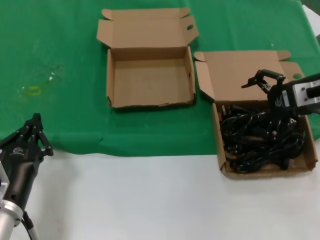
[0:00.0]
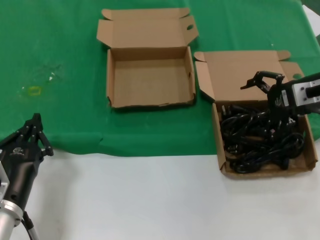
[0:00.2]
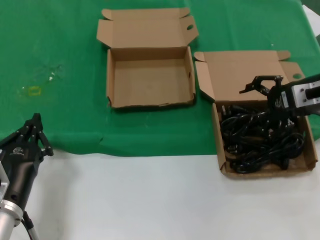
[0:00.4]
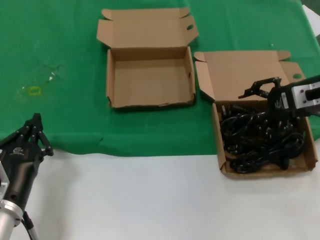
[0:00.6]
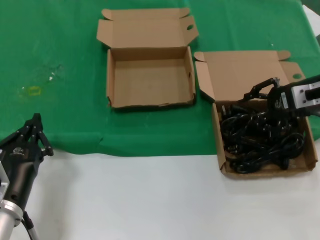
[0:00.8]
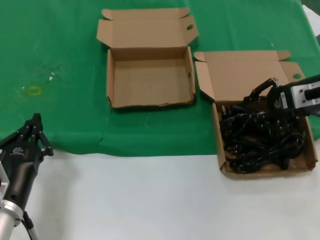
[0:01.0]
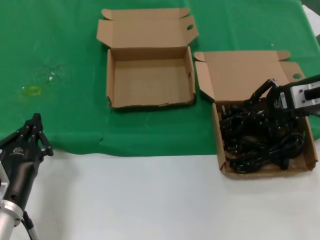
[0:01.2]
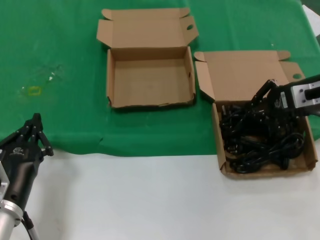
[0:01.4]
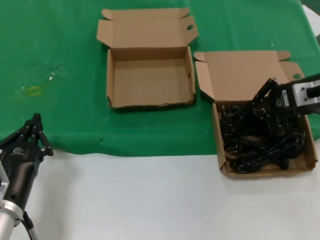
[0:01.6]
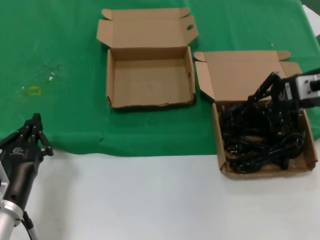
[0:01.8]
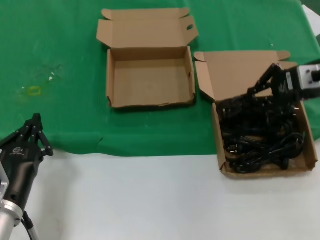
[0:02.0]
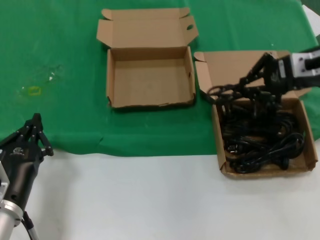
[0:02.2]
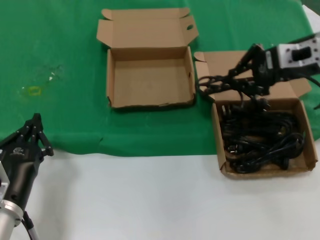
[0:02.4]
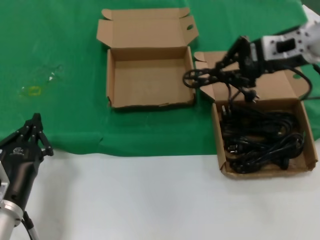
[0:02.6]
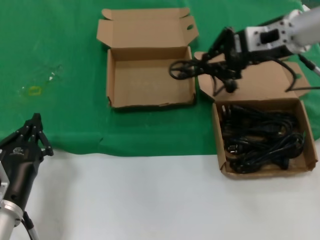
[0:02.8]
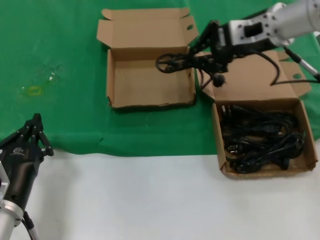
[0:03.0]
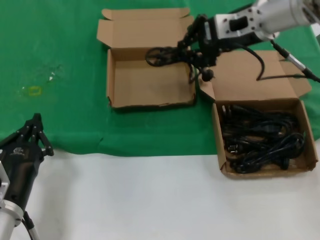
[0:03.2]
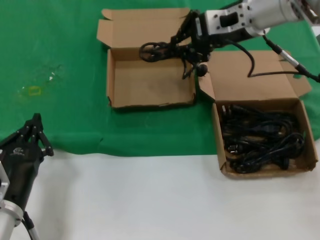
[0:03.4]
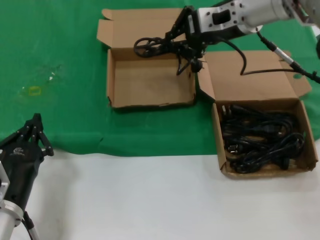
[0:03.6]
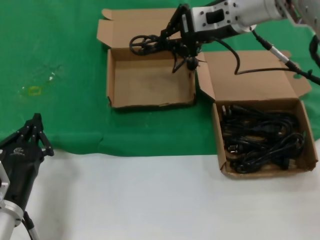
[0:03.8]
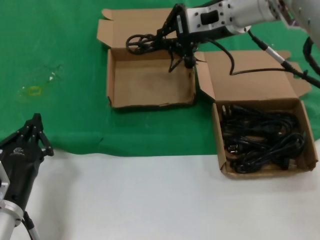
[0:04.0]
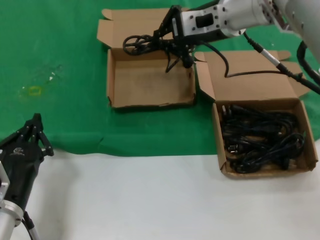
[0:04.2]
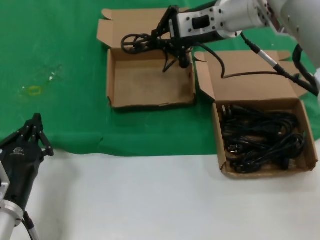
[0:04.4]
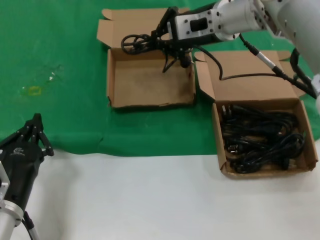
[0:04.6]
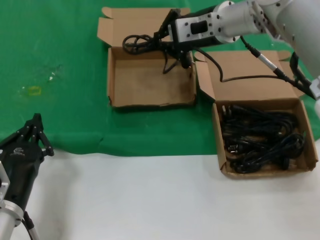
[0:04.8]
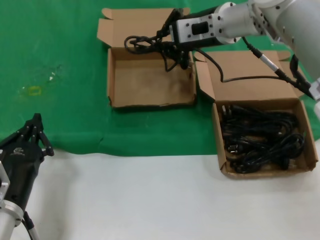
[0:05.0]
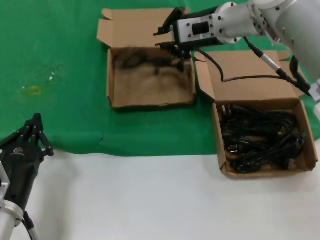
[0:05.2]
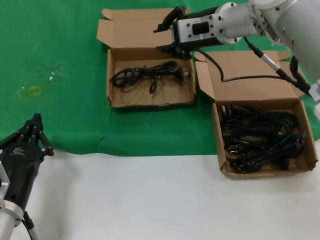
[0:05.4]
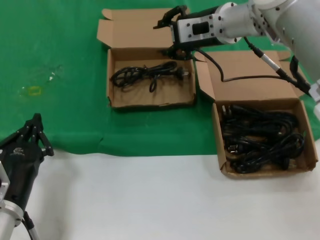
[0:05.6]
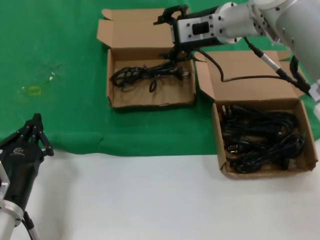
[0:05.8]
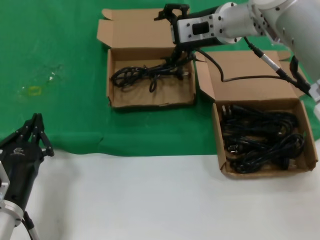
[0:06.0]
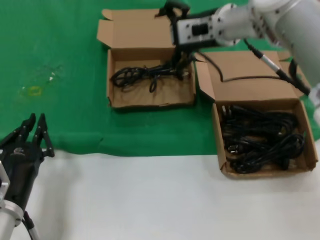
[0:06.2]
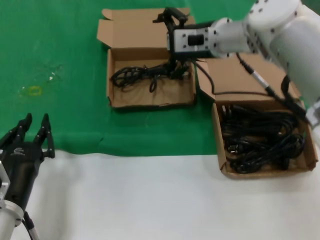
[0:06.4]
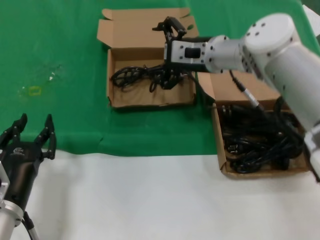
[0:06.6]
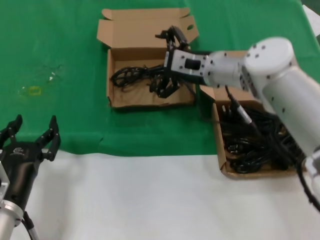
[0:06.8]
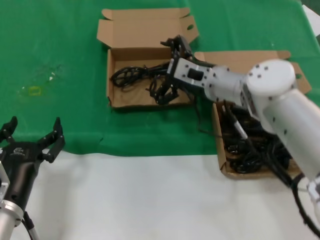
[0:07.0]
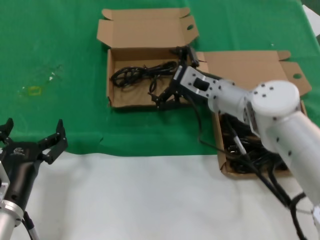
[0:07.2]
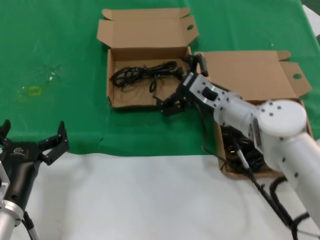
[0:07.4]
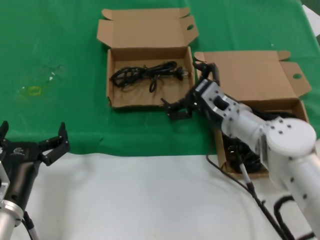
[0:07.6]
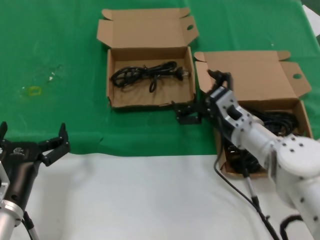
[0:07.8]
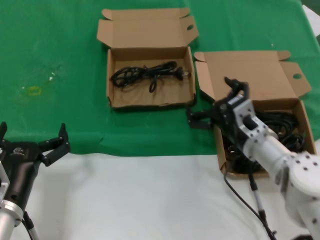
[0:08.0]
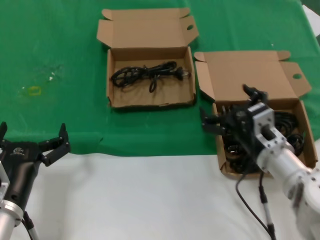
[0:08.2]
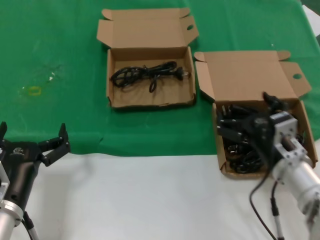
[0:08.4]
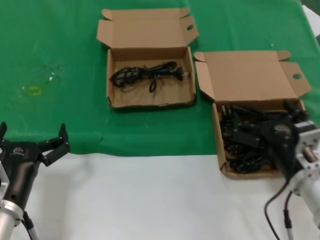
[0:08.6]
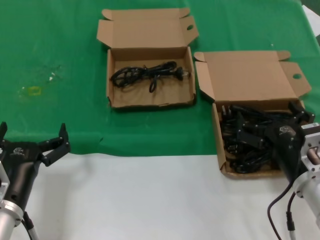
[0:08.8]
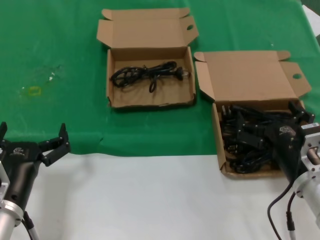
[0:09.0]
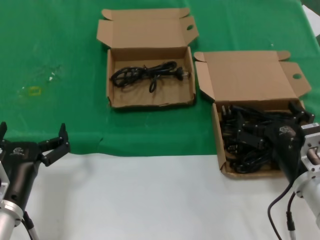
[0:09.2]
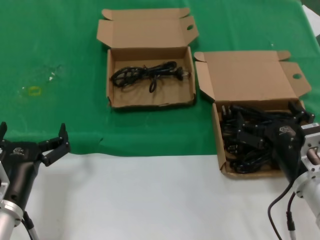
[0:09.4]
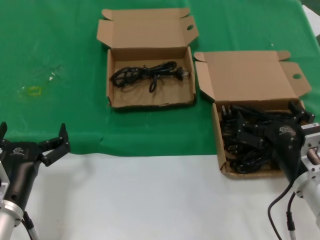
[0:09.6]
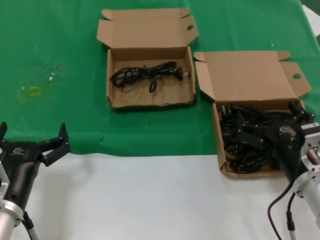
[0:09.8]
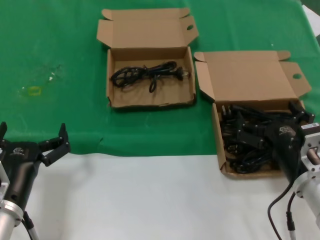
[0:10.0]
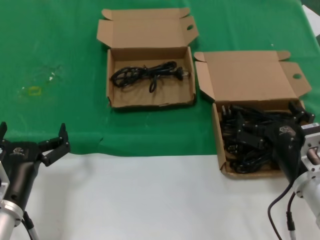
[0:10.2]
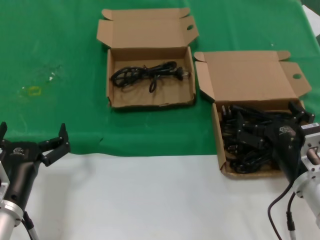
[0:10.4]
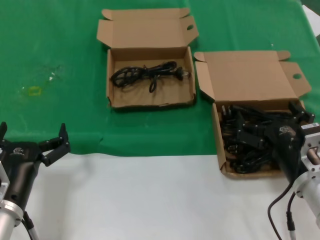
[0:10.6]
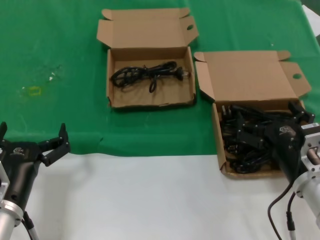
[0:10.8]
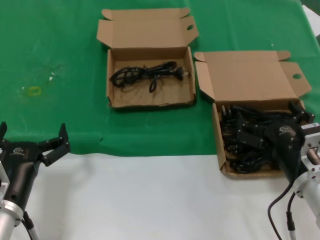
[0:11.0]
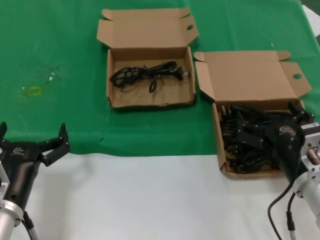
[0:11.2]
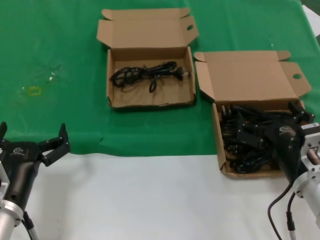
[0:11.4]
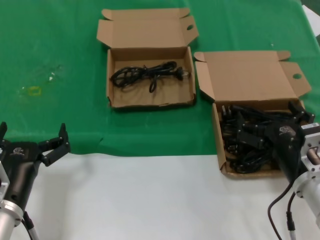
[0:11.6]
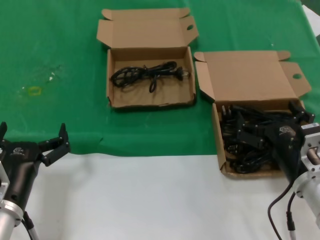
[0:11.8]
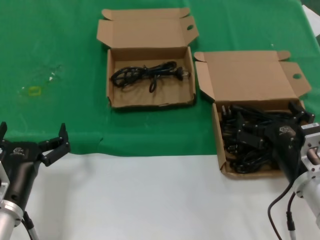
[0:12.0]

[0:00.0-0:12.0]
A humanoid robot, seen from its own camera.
Task of the whole recording: take the parts from the box containing them and put them into an empty box.
Step, 0:01.8 to 0:05.4: Place the data cable in the another box.
0:00.0 to 0:01.6: Both hands stay put.
0:01.6 to 0:03.0: The right hand goes approximately 15 cm to the left, upward and forward.
0:03.0 to 0:04.4: The right hand travels to the left by some 10 cm.
0:04.4 to 0:06.0: The hands move only a little.
0:06.0 to 0:07.6: The right hand is displaced downward and backward by about 20 cm.
0:07.6 to 0:09.0: The right hand goes about 20 cm backward and to the right.
0:09.0 to 0:12.0: Neither hand changes place.

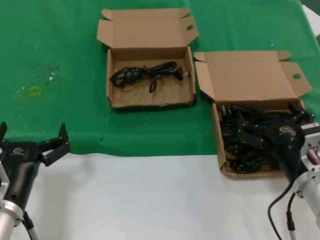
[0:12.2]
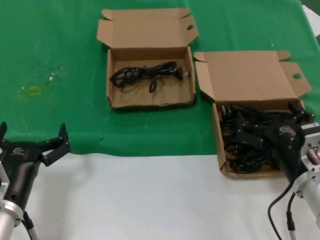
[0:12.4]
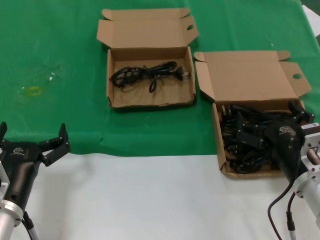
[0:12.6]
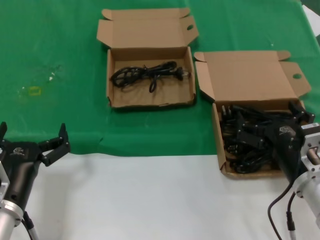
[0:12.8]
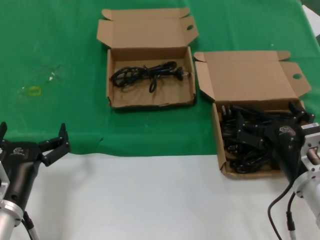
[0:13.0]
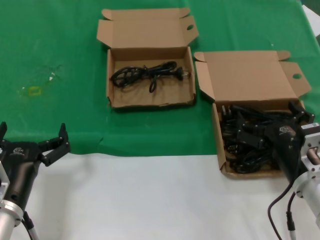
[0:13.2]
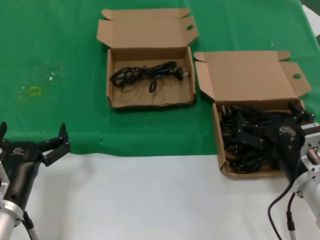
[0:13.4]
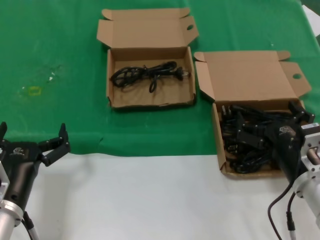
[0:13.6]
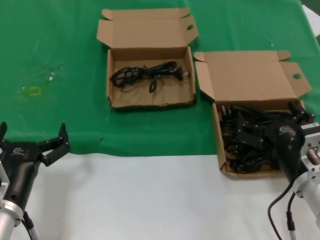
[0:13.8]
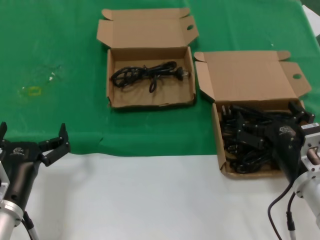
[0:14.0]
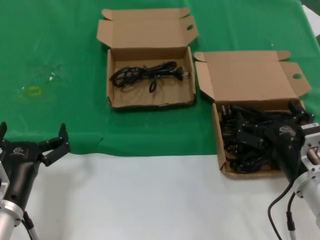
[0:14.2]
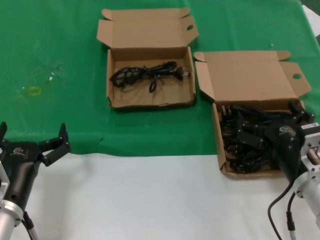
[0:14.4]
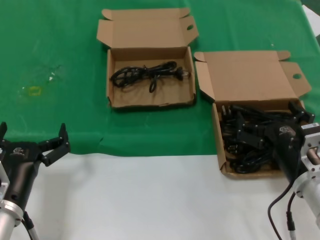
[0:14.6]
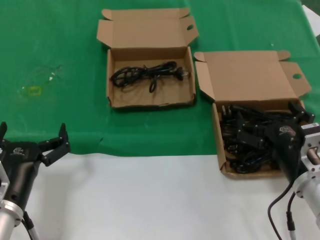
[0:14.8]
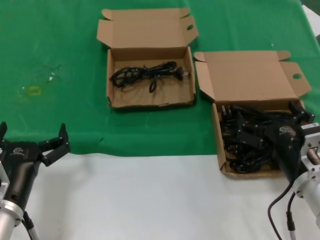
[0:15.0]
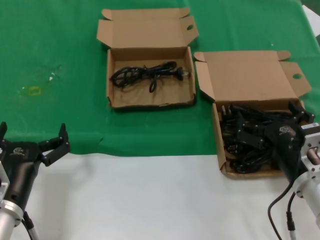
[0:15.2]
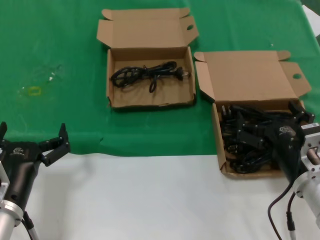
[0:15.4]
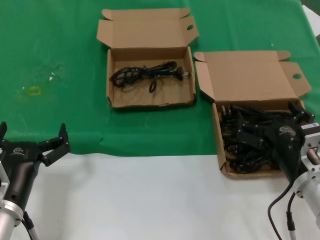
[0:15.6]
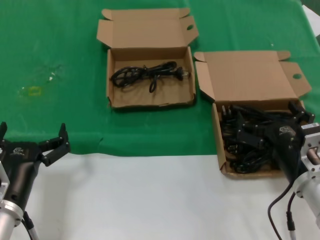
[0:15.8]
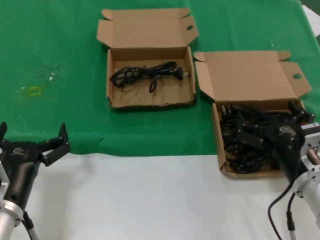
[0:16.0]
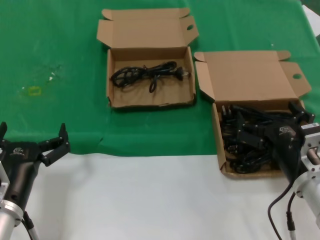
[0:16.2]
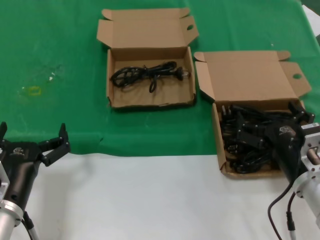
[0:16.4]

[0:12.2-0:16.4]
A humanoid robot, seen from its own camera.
Task of the whole recording: take the parts from the box containing them and put them into an empty box.
0:12.2 to 0:16.4: Both hands stay about where they are.

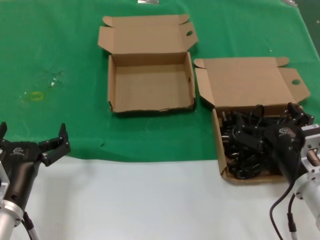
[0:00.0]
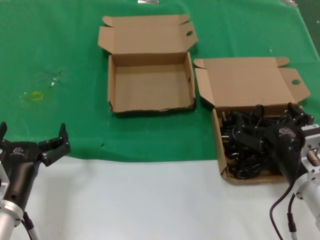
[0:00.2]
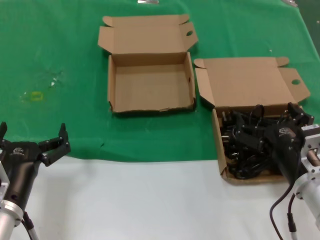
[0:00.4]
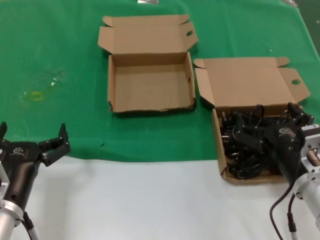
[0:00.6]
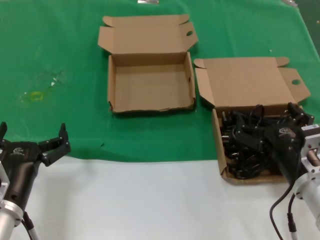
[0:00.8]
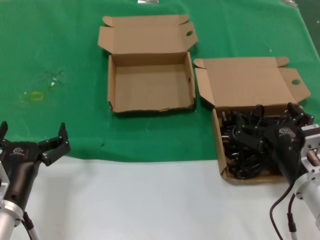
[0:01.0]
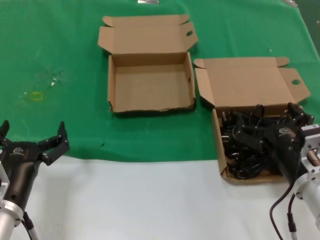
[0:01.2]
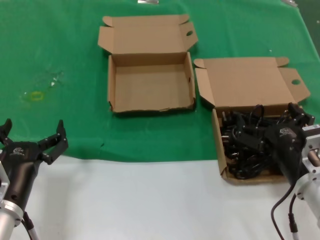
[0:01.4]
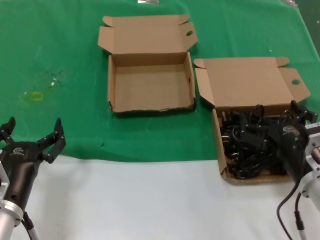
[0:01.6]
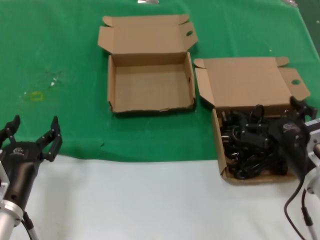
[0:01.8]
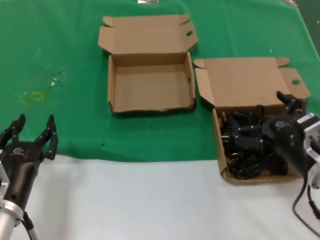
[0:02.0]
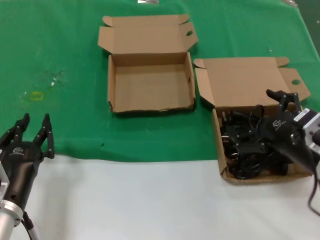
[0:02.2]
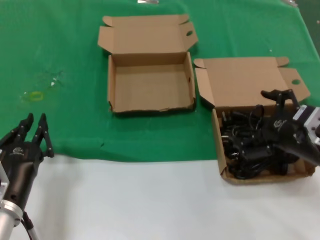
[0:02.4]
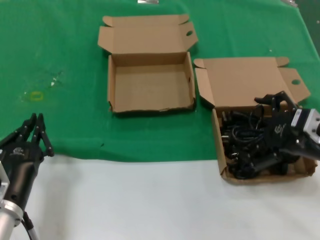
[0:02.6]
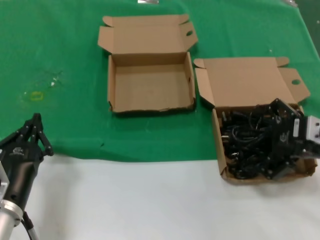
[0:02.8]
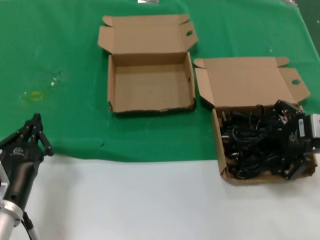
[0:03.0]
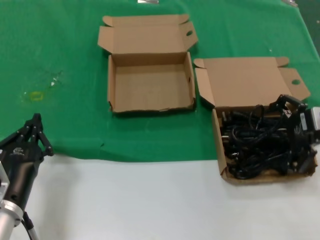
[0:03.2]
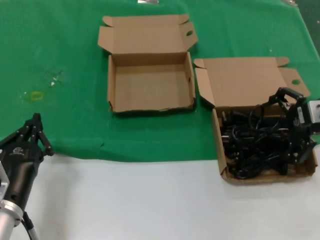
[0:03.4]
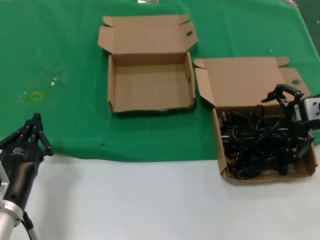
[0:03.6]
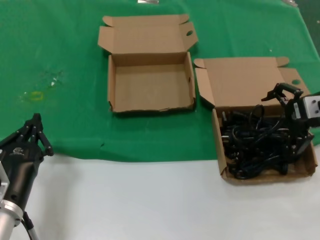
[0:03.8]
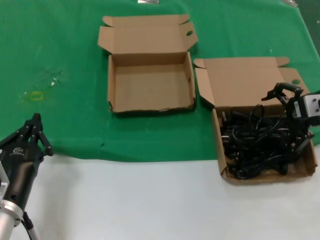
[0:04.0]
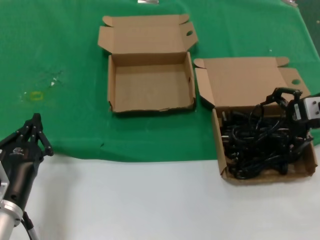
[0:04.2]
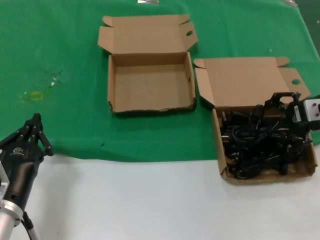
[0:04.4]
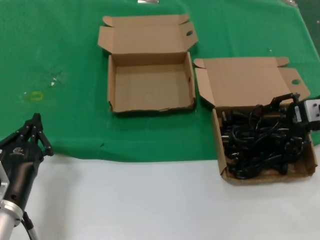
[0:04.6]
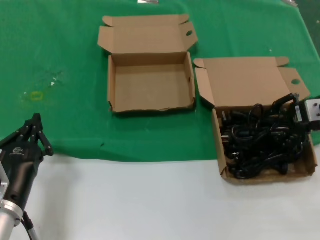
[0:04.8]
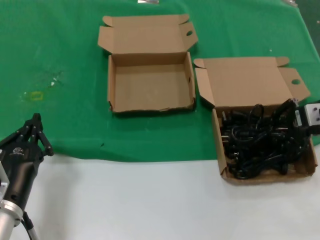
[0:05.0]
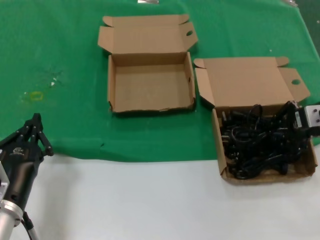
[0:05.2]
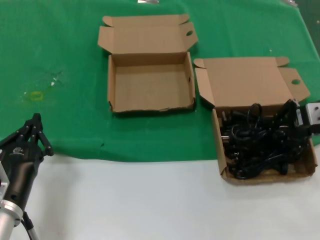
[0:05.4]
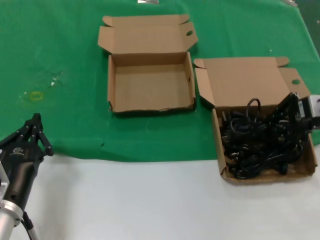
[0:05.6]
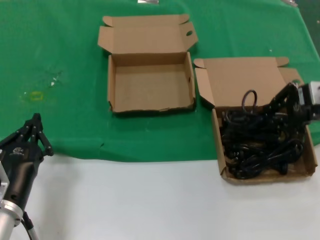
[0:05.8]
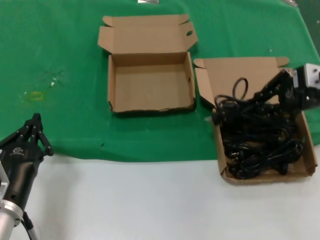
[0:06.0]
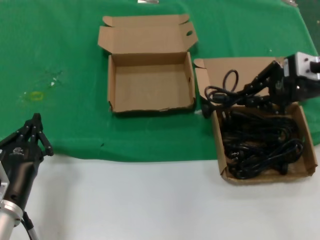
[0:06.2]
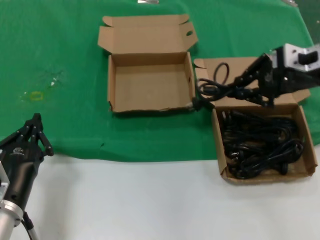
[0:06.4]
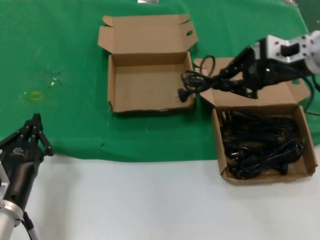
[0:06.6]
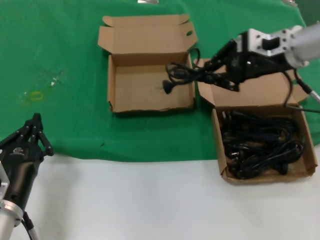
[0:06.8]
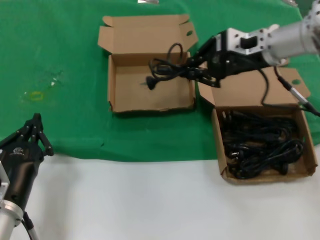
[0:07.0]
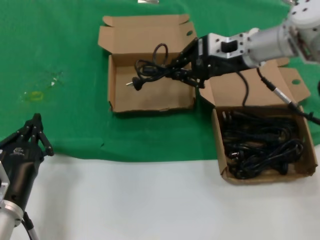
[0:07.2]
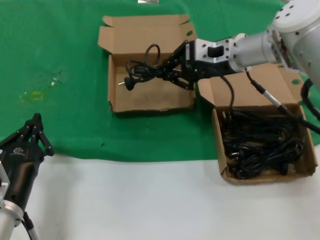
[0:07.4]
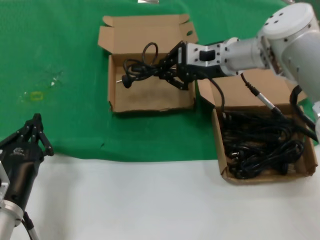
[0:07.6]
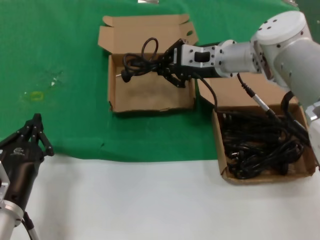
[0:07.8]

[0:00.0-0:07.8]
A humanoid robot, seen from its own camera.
Task of the whole recording: take the parts from the box containing them and put them into an empty box.
Step, 0:00.0 to 0:05.2: Grasp the data cable.
0:00.0 to 0:01.6: Both hands stay about where they are.
0:01.6 to 0:03.2: The right hand goes approximately 20 cm upward, to the right and forward.
0:03.2 to 0:04.6: There are only small adjustments of the hands.
0:04.6 to 0:06.2: The right hand heads upward, covering roughly 5 cm.
0:06.2 to 0:07.8: The right hand heads to the left and forward, covering approximately 20 cm.
